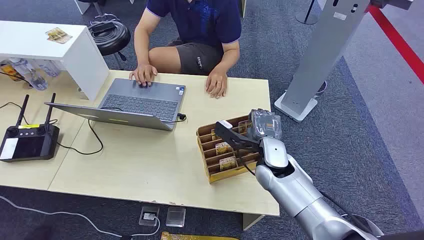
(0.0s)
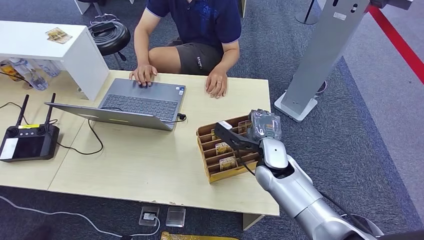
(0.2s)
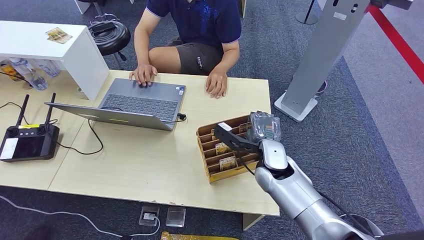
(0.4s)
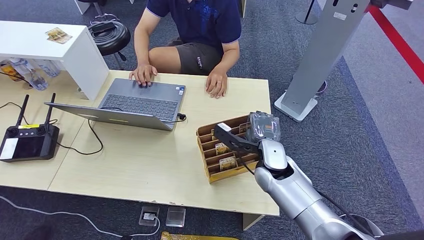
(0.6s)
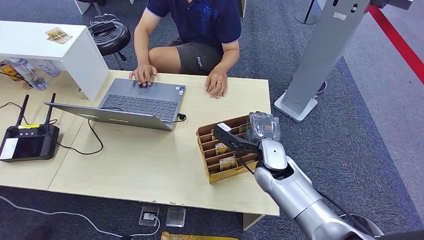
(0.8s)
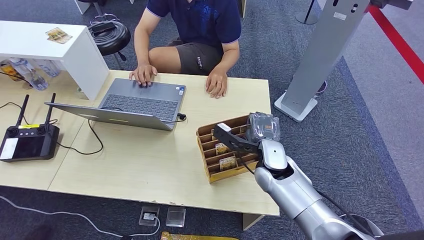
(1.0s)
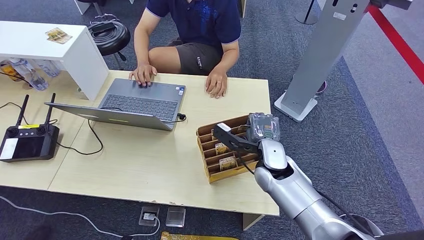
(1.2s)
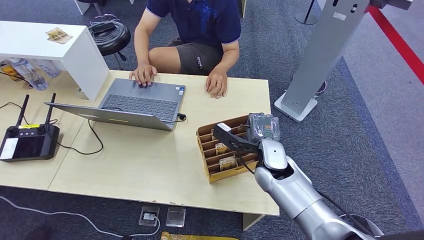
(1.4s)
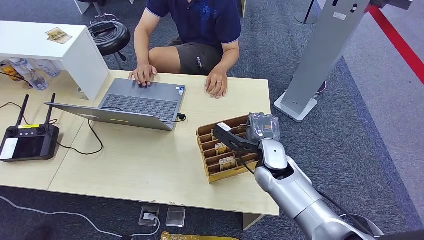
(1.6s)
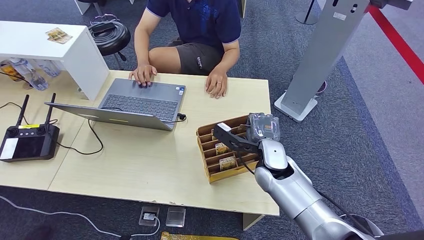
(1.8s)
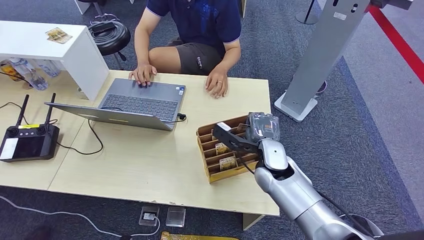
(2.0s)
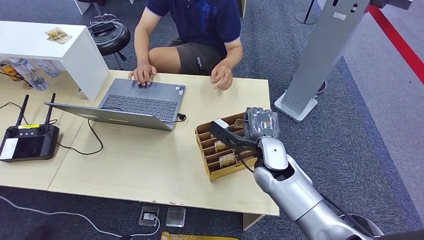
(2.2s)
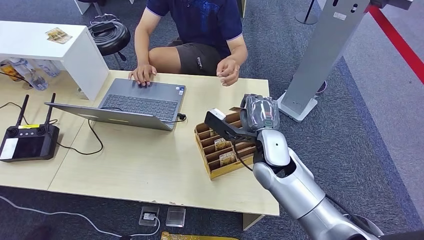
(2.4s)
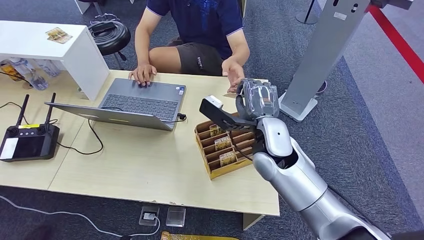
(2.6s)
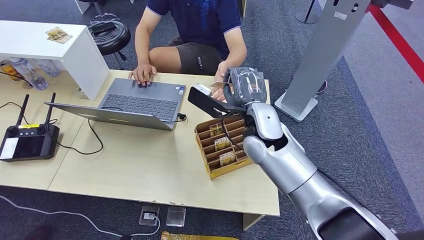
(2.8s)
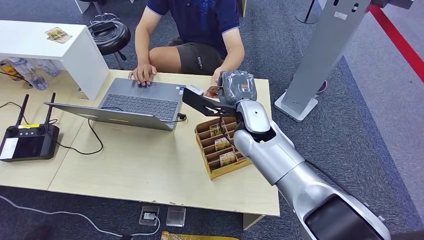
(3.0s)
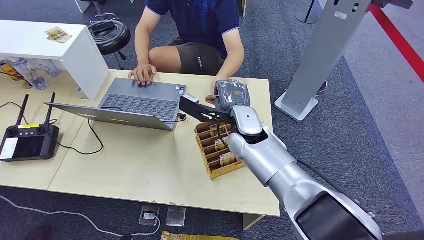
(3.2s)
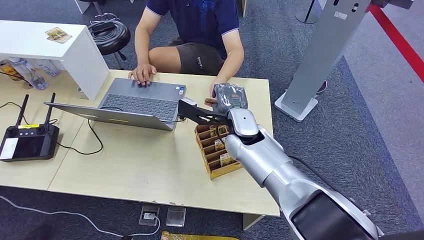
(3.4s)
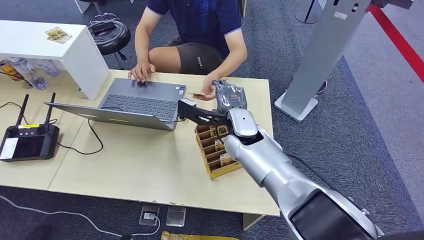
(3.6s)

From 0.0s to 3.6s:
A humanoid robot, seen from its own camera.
Step, from 0.0s to 2.2s: Pick up the key card from the card box.
Step, from 2.4s to 3.4s: Hand the key card to the target.
From 1.8s to 3.6s: The right hand is displaced to the left and upward by some 10 cm.

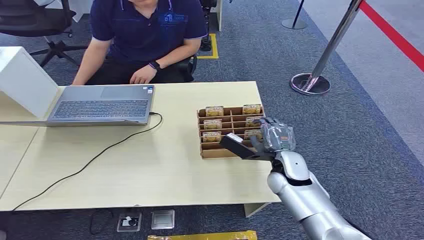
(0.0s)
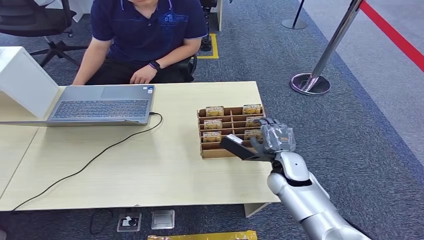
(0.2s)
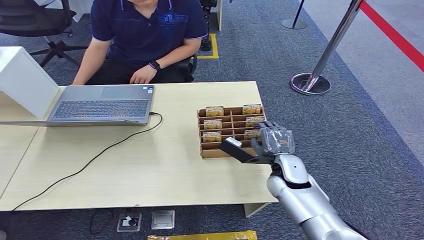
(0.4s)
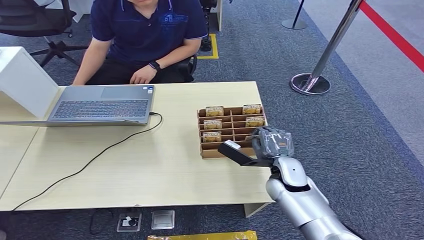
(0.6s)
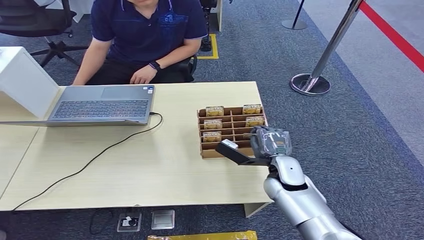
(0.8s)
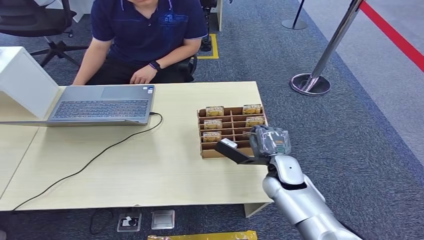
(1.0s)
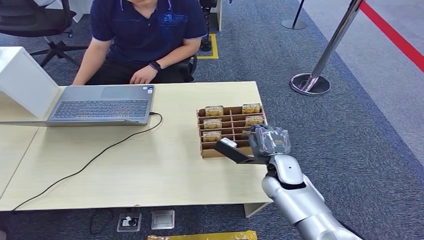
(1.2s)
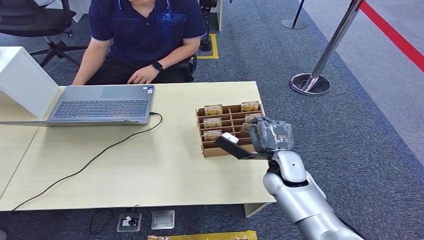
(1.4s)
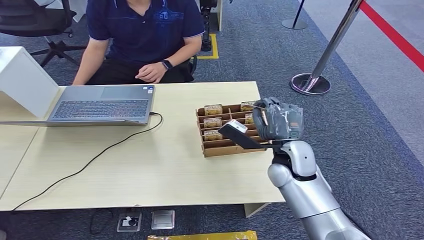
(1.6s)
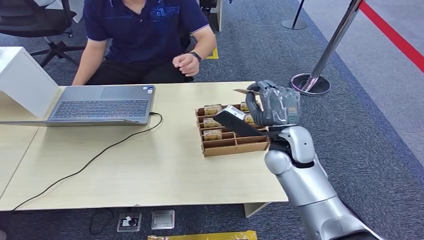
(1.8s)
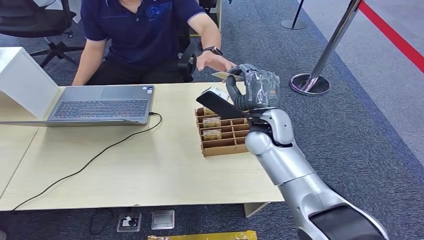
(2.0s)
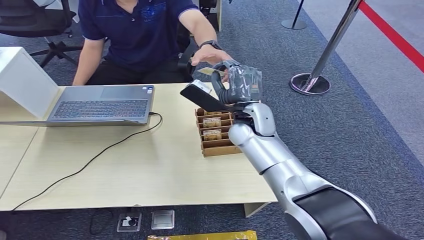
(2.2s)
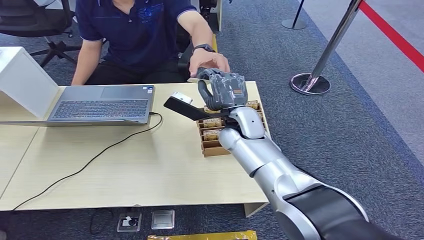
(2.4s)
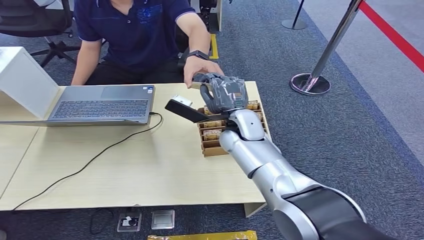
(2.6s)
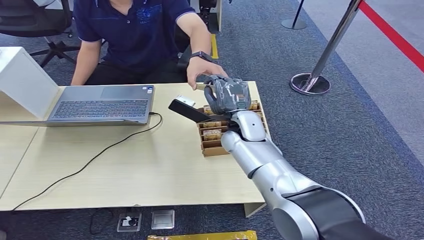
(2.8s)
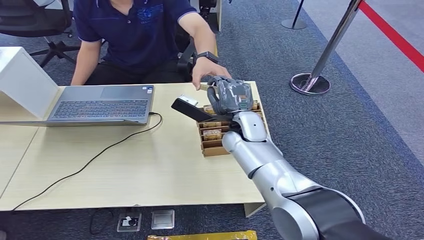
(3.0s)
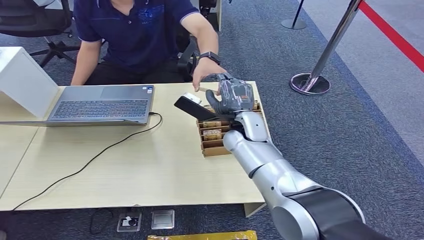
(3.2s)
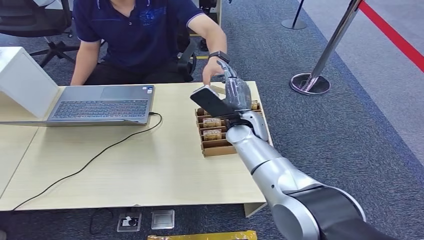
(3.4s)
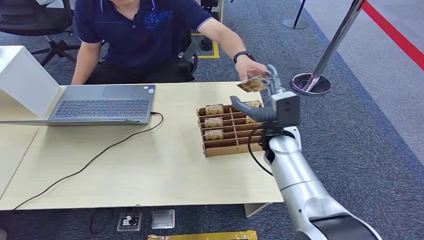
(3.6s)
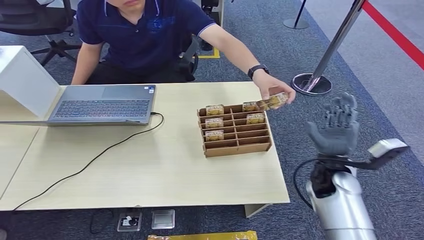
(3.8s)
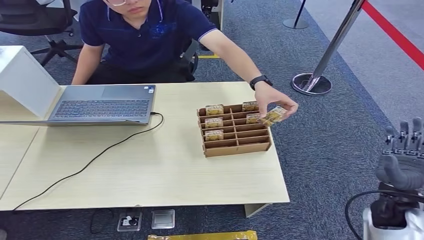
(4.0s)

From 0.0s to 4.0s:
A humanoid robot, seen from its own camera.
Step, from 0.0s to 1.6s: Pick up the key card from the card box.
Step, from 1.8s to 4.0s: Hand the key card to the target.
From 1.4s to 2.6s: The right hand heads to the left, forward and upward, covering approximately 15 cm.
